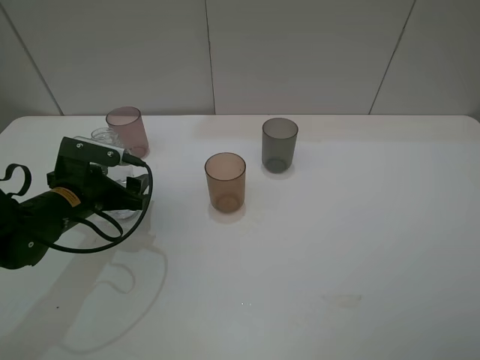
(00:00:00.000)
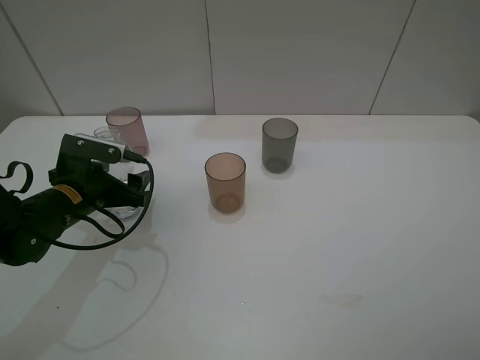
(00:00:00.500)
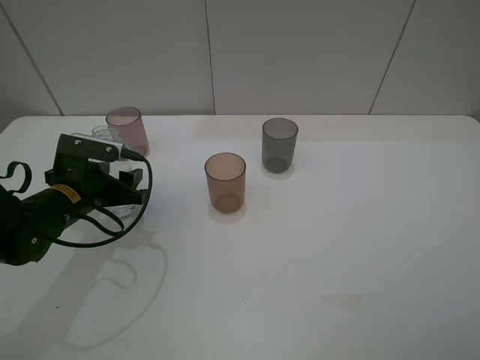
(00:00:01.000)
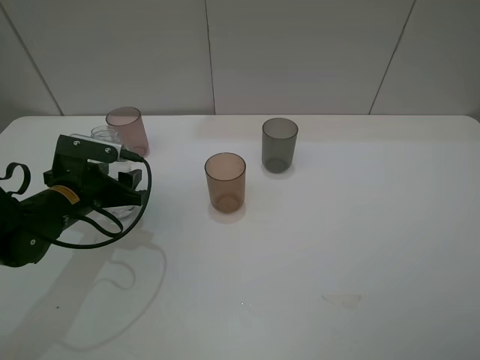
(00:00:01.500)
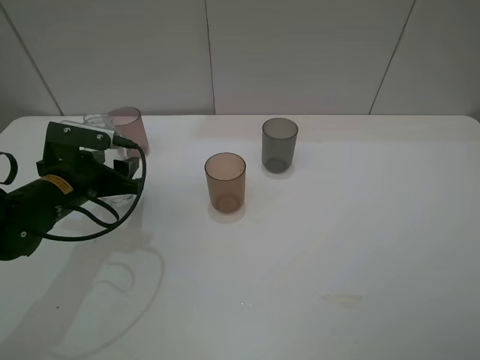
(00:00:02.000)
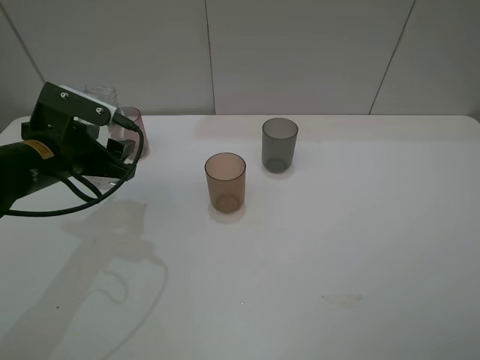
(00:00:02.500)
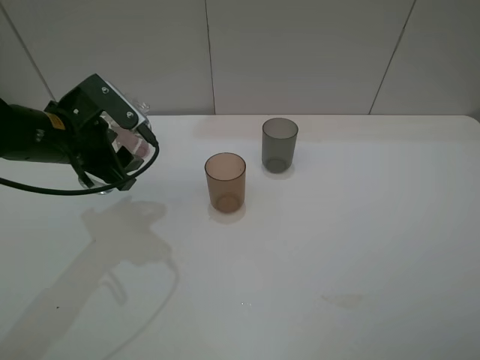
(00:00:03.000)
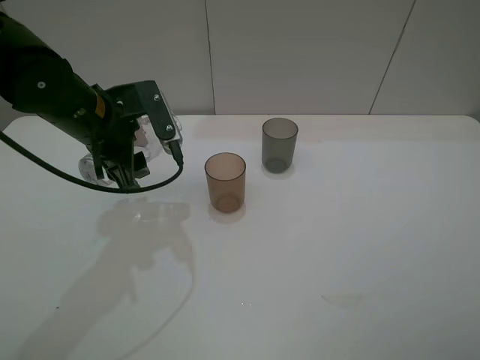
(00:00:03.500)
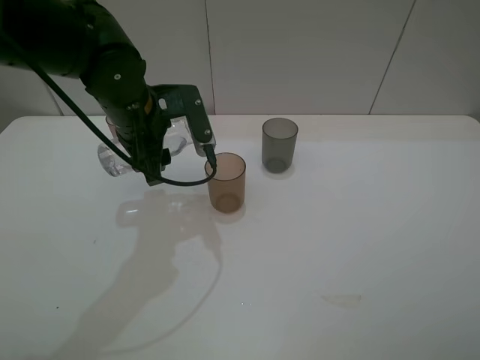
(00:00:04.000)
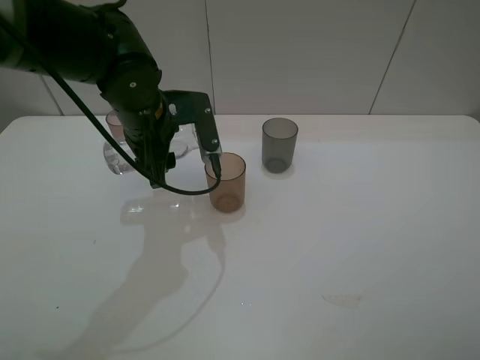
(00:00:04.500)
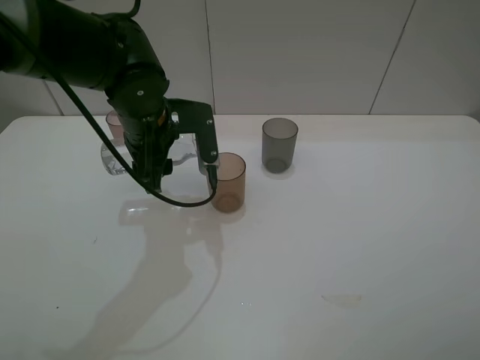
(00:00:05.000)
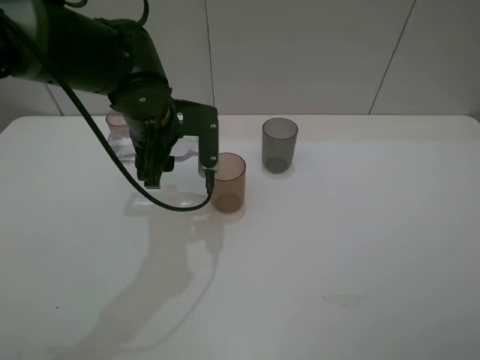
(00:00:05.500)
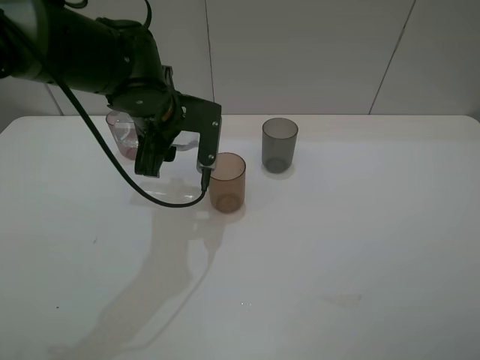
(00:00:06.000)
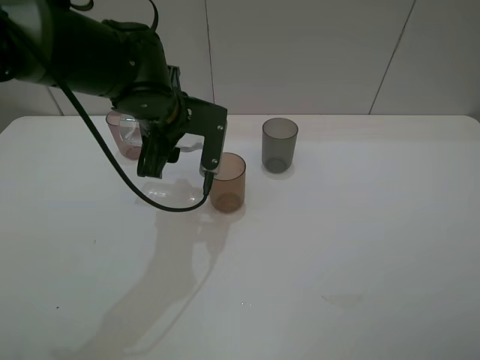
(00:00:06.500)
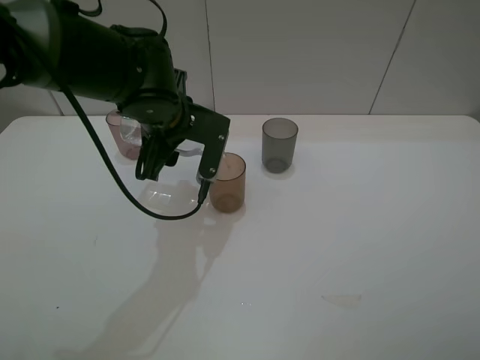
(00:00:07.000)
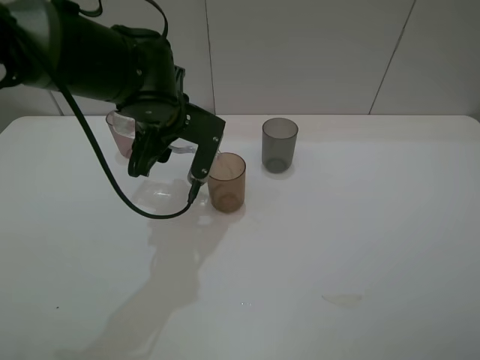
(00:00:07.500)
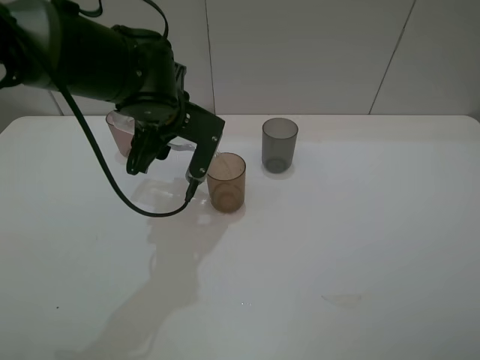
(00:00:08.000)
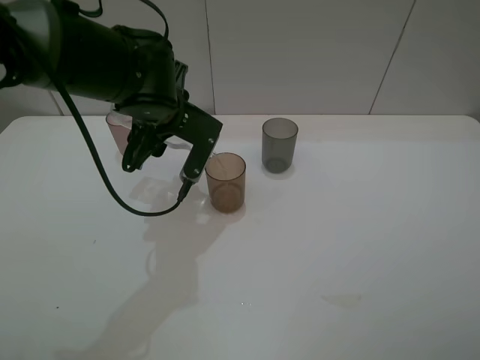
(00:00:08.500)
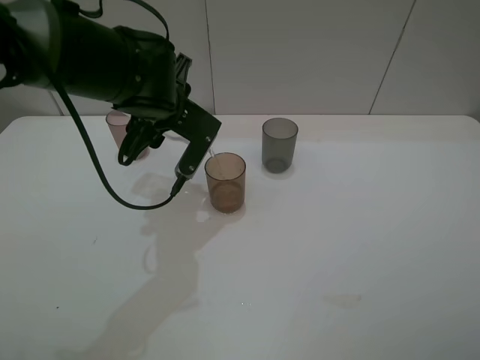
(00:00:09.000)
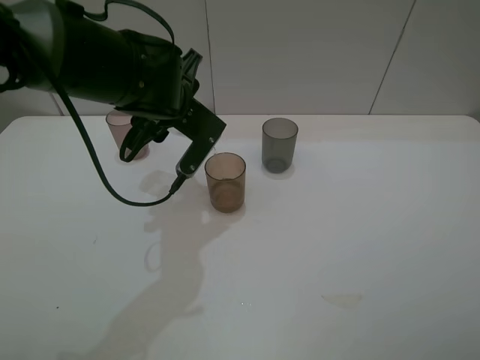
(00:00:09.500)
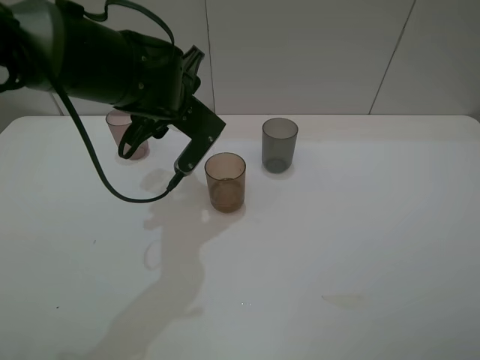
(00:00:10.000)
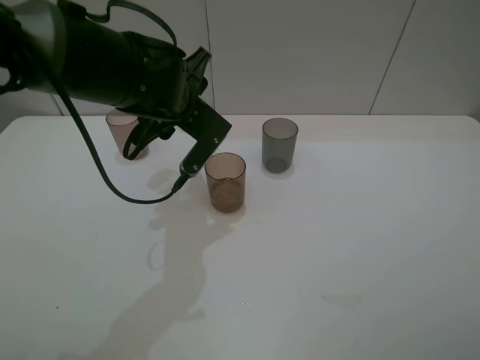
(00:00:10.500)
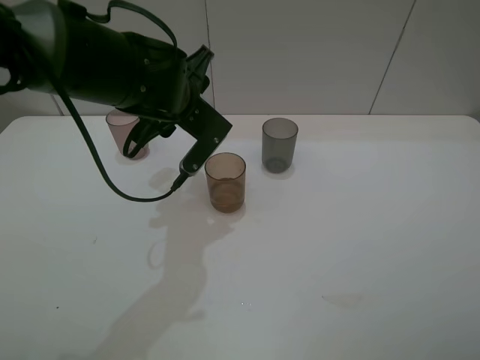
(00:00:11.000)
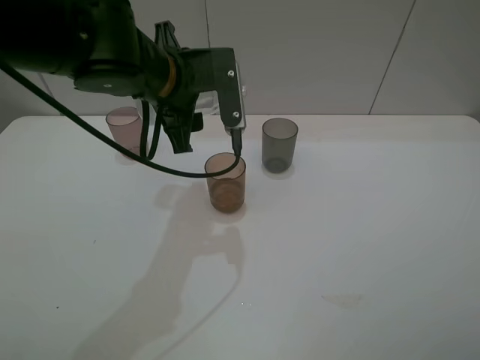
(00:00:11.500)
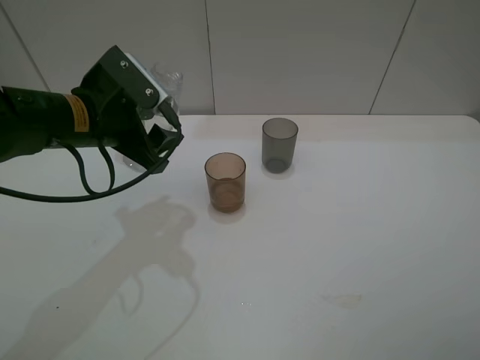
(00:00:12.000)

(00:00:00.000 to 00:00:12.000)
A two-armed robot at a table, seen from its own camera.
Task of the whole recording: pick up the bottle filled with water and pour water into the middle cup of the three cups.
Step, 00:00:00.000 - 00:00:05.000: Pour water from transparent bottle to brown cup with the left gripper.
00:00:00.000 - 00:00:02.000: The left gripper closes up.
00:00:02.000 - 00:00:04.000: The left gripper goes some 15 cm to the right, upward and forward.
00:00:06.000 - 00:00:08.000: The grippers stay close to where they were, moving slightly.
00:00:08.000 - 00:00:10.000: There are only small adjustments of the grippers.
00:00:10.000 - 00:00:12.000: The left gripper moves to the left and backward, roughly 10 cm.

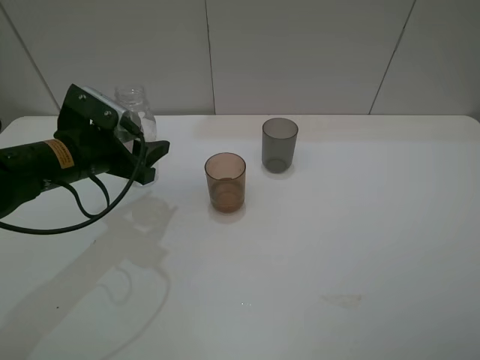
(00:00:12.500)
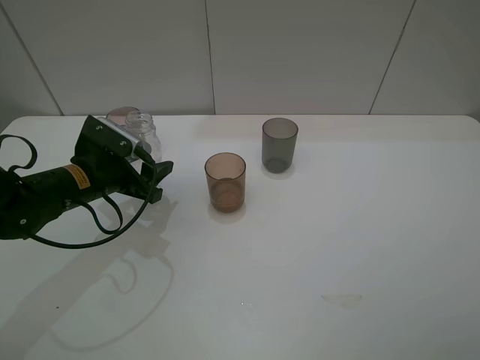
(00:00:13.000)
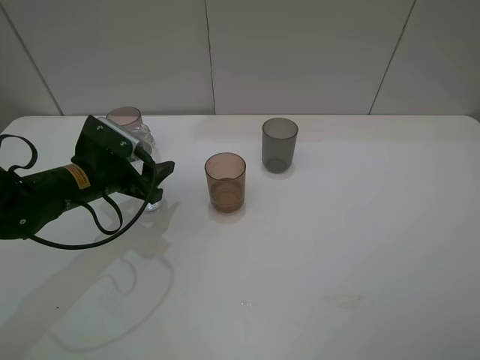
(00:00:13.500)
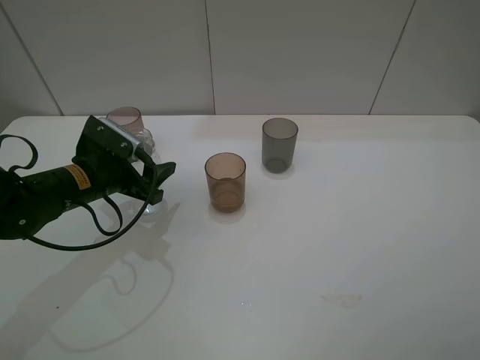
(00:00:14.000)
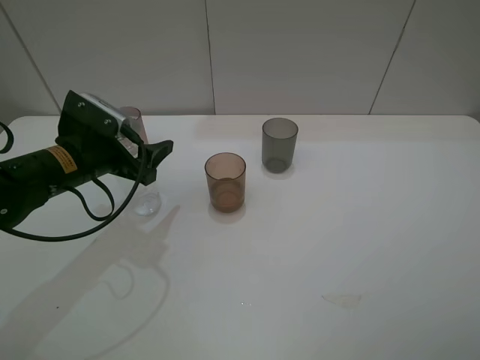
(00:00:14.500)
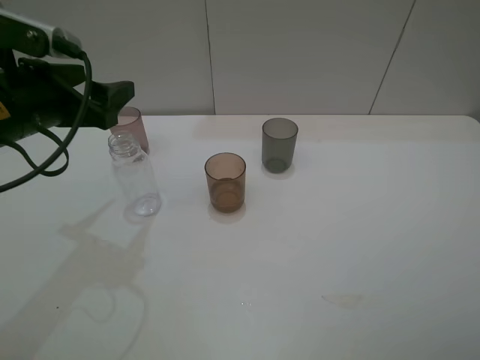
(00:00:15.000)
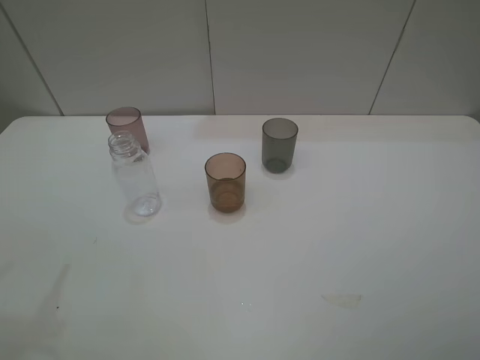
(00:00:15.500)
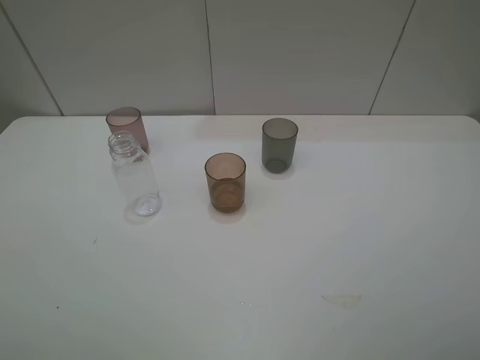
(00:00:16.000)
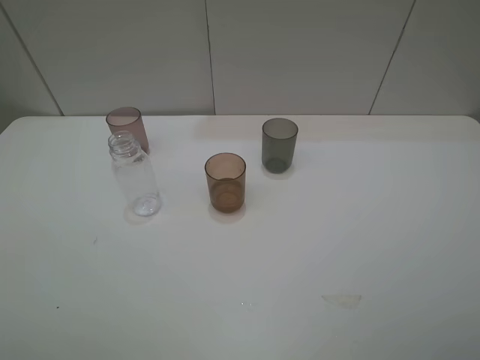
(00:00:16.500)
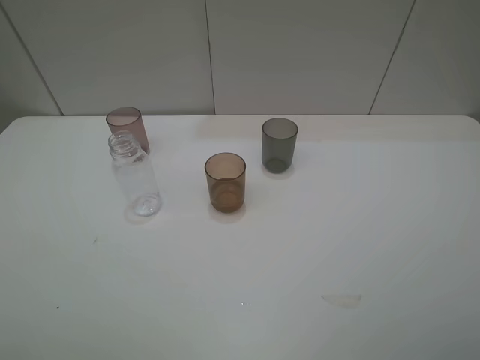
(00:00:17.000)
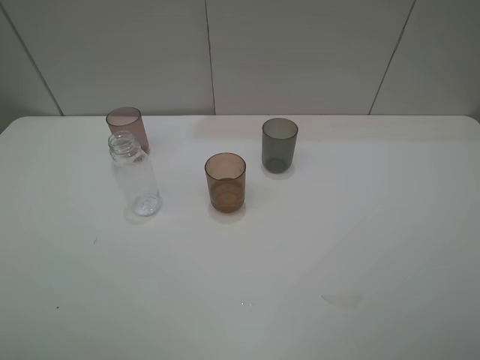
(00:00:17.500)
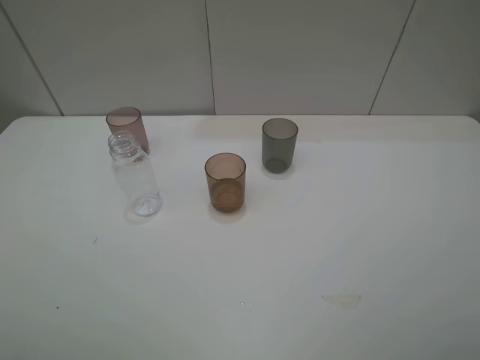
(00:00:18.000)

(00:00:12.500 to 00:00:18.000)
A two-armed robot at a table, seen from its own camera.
Task of the whole recording: pick up the bottle filled with water and pour water into the middle cup of the three cups.
00:00:12.500 - 00:00:14.500: The left gripper opens.
00:00:14.500 - 00:00:16.000: The left gripper travels backward, upward and to the left by roughly 35 cm.
